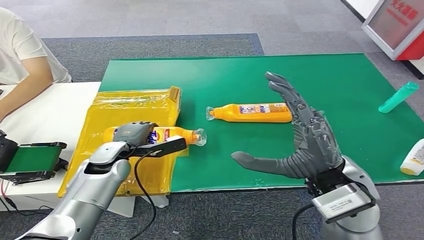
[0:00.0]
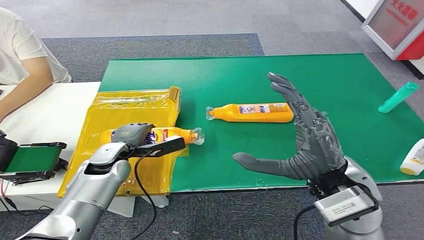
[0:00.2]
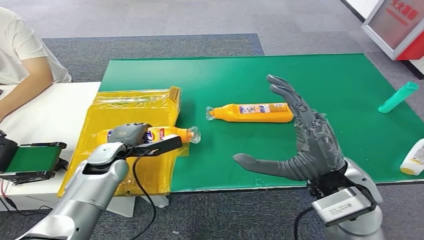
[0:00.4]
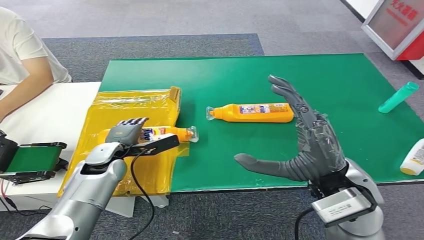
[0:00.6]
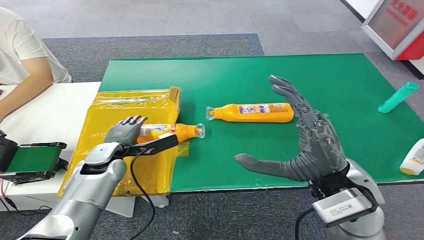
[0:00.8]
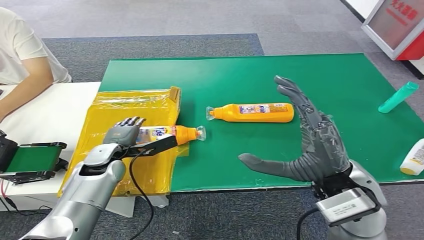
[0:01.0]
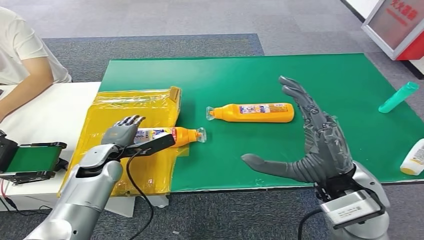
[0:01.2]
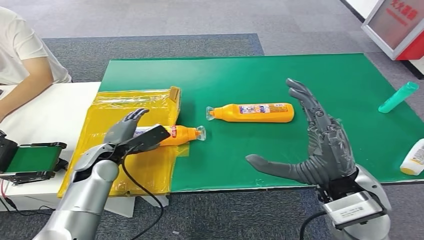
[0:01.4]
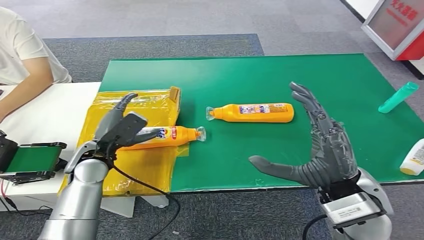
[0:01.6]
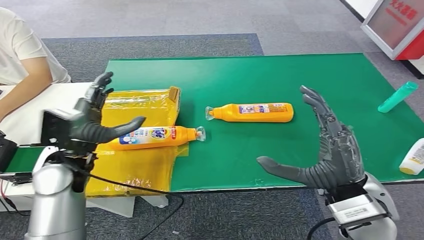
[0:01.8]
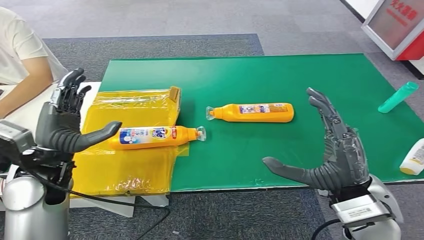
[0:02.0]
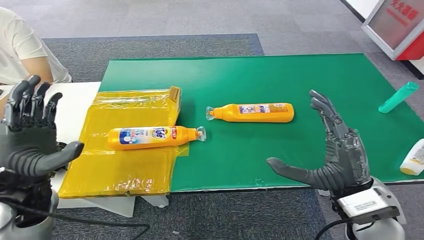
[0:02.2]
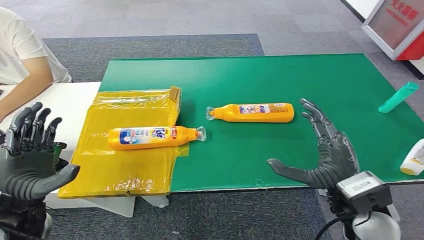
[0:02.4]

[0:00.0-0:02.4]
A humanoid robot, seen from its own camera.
Step, 0:00.0 to 0:02.4: Turn the bottle to the front side.
0:00.0 to 0:01.2: There are only small adjustments of the hands.
0:01.2 to 0:02.4: The right hand heads downward, covering about 5 cm. Meanwhile the left hand travels backward and upward by some 20 cm.

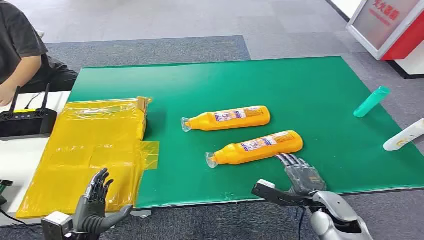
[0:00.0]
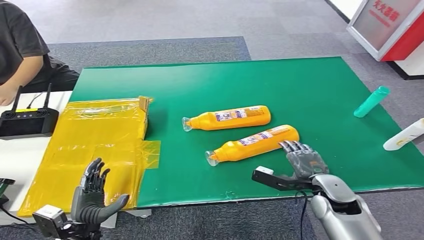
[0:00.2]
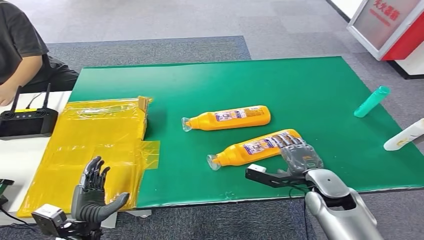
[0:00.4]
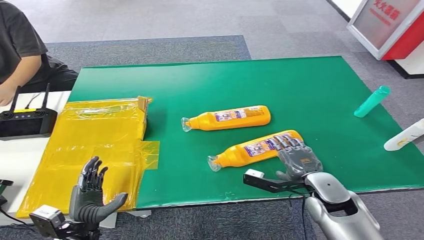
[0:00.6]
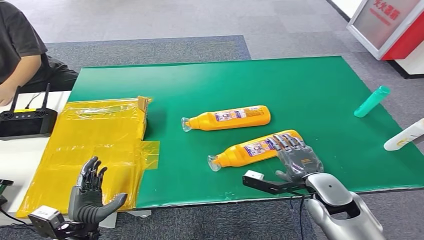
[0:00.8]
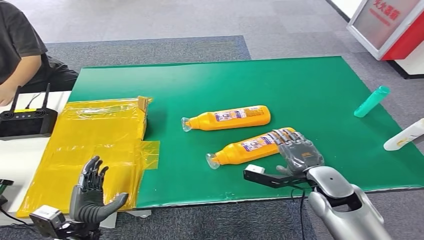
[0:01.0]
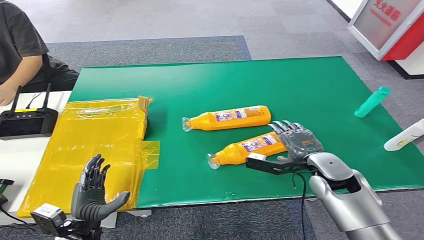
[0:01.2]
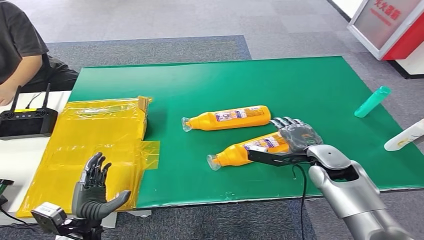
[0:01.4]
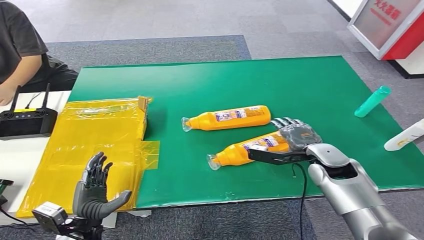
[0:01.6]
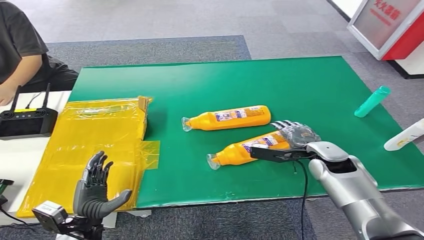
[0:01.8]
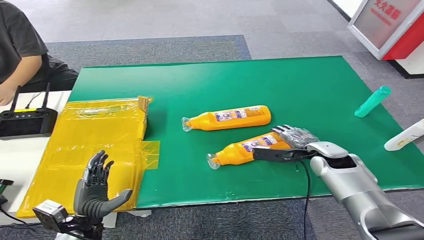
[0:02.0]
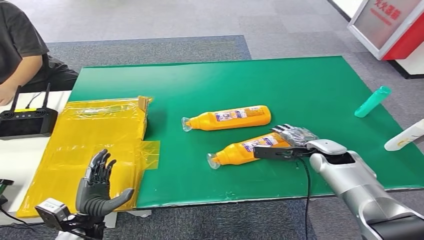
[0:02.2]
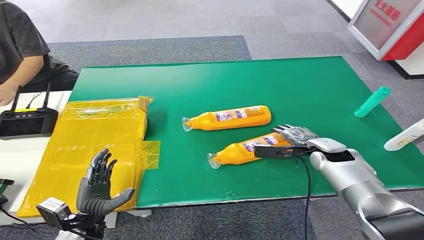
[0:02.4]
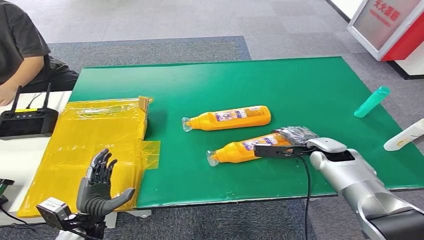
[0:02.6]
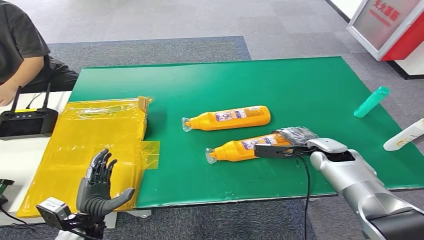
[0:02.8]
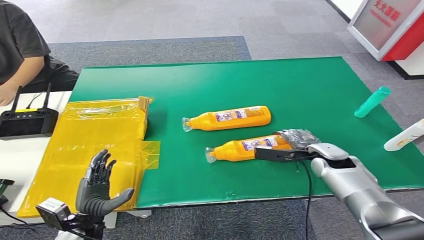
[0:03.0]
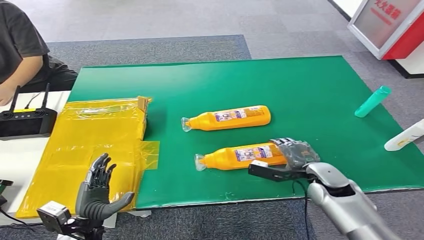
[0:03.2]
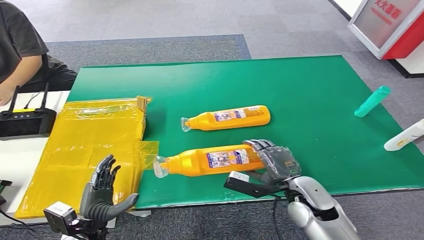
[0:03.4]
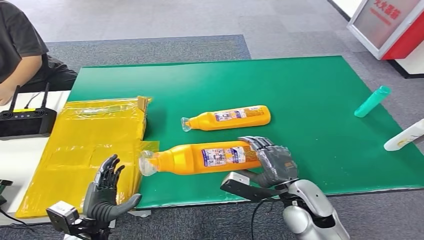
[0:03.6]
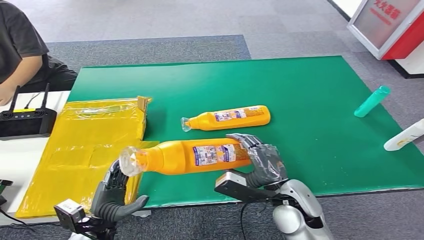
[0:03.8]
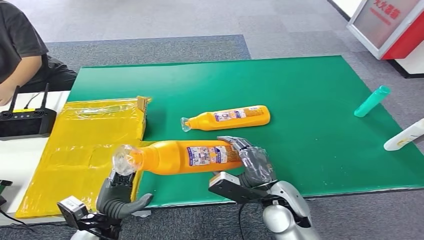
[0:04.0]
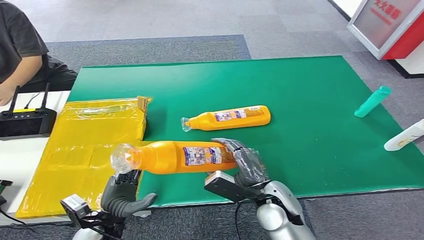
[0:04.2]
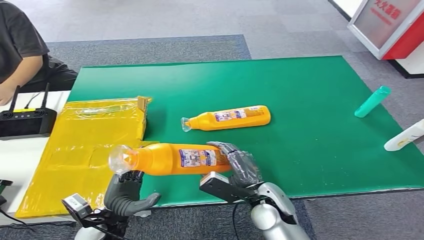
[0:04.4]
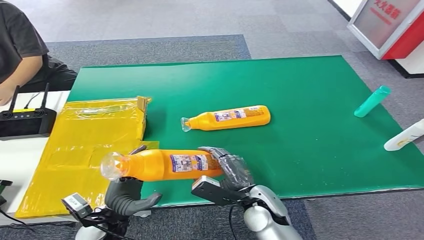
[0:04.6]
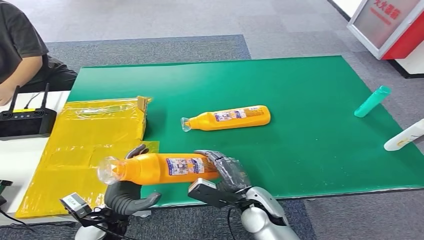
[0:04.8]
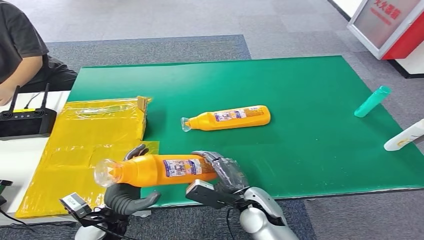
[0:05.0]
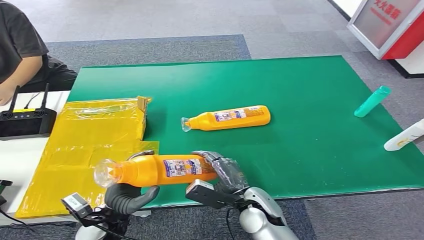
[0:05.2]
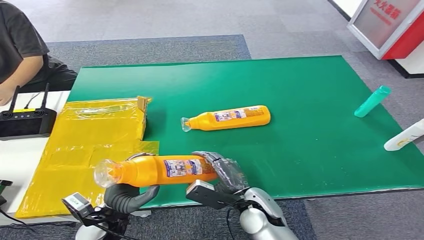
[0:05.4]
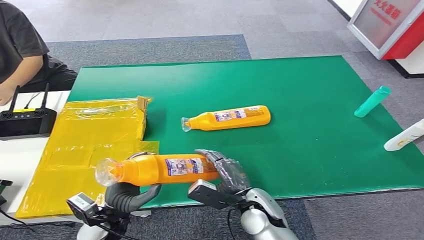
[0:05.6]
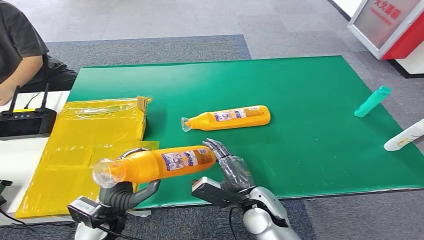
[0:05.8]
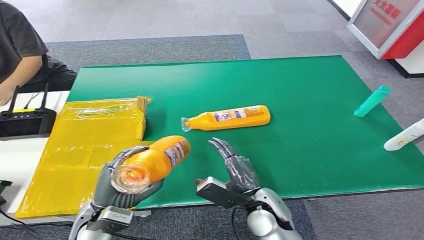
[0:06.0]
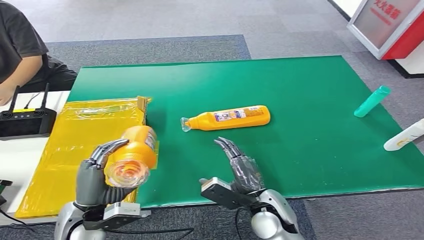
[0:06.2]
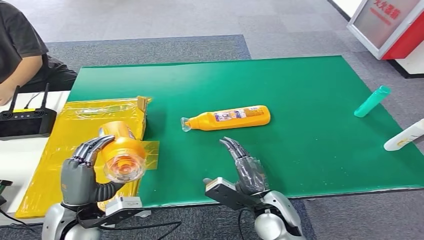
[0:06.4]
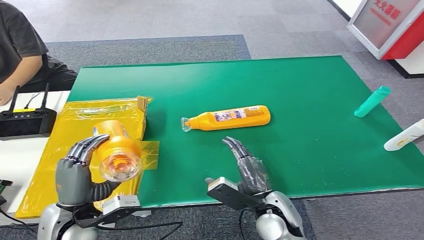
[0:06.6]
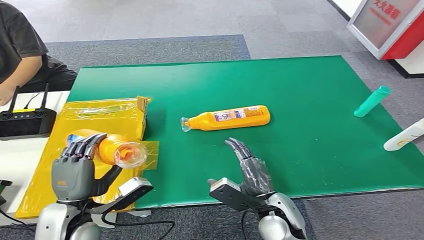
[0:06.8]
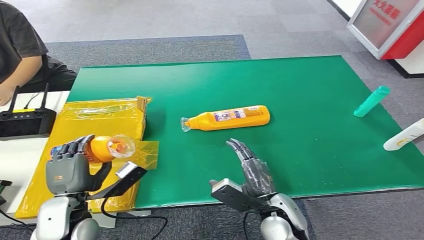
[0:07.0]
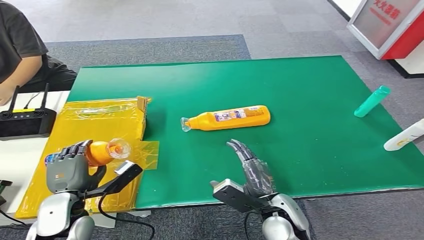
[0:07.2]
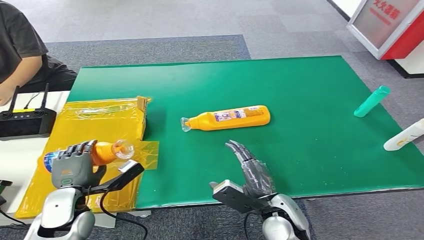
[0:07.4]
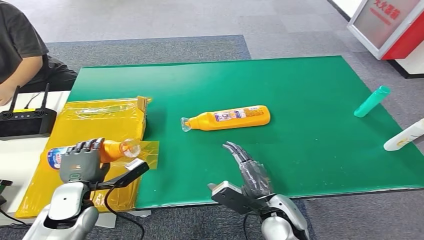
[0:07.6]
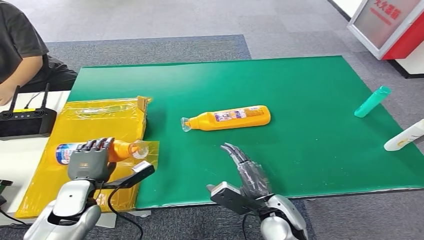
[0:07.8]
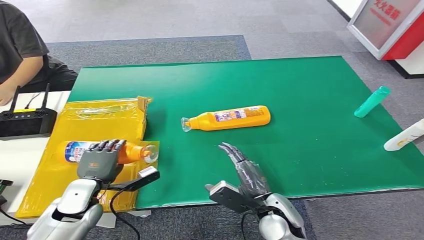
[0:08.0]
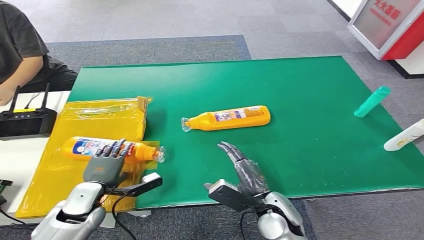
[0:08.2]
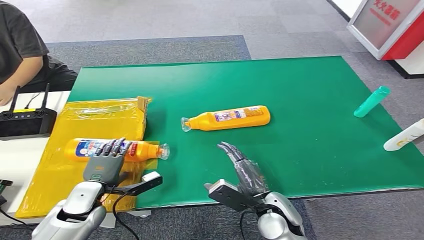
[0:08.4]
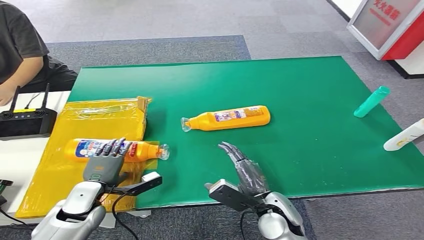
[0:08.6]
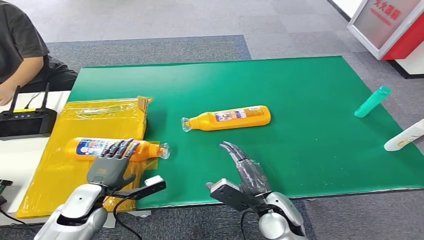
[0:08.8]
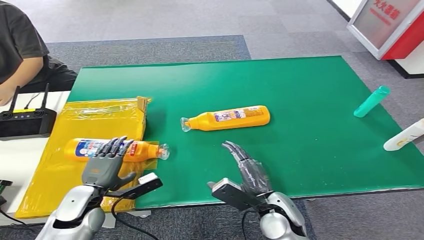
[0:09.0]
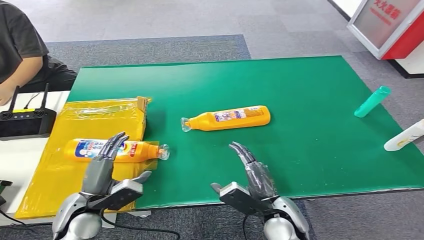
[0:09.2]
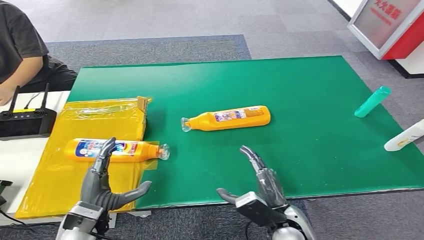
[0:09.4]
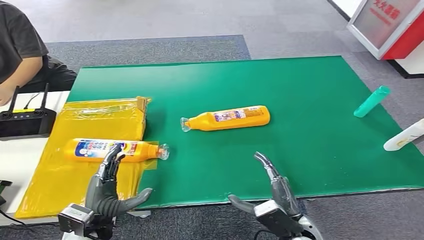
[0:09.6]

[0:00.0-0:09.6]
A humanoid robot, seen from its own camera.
Step, 0:00.0 to 0:04.4: Pick up the bottle from the table.
Step, 0:04.6 to 0:09.4: Turn the bottle to the front side.
0:01.6 to 0:03.2: The right hand moves downward, about 5 cm.
0:03.2 to 0:04.8: The left hand heads to the right, covering about 5 cm. The right hand moves to the left and backward, approximately 20 cm.
0:04.8 to 0:06.4: The left hand shifts some 10 cm upward.
0:06.4 to 0:08.0: The left hand moves forward and downward, roughly 10 cm.
0:08.0 to 0:09.6: The right hand changes place by approximately 5 cm, while the left hand shifts roughly 10 cm backward.
